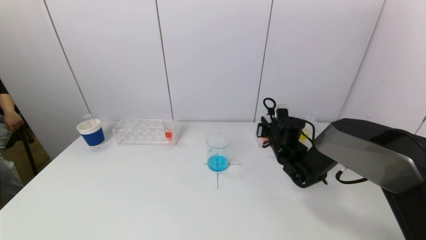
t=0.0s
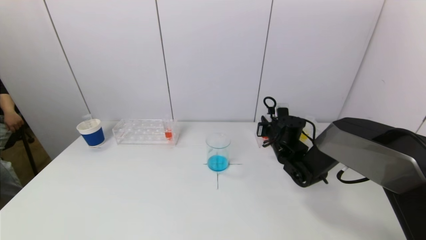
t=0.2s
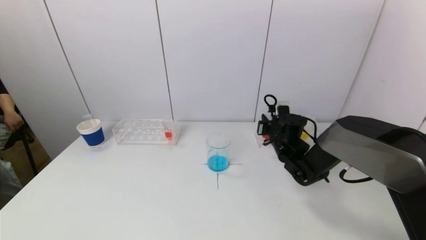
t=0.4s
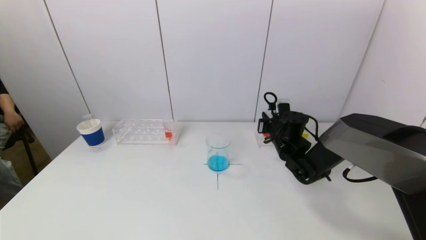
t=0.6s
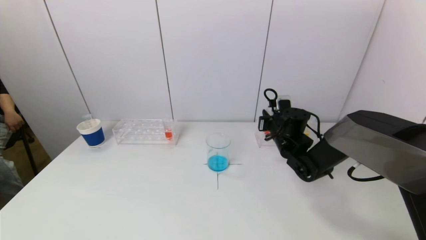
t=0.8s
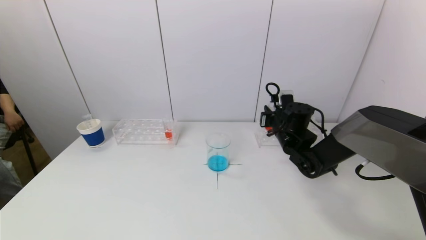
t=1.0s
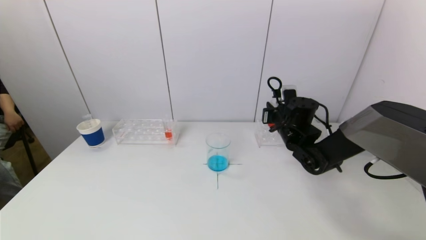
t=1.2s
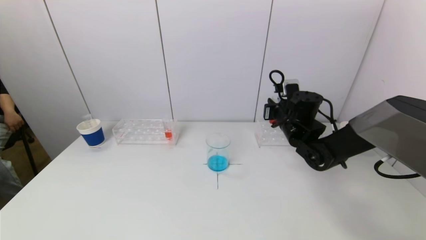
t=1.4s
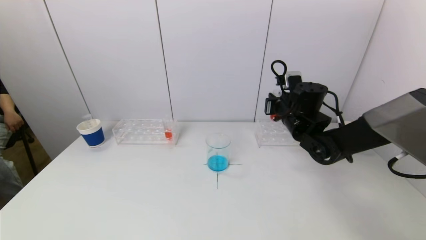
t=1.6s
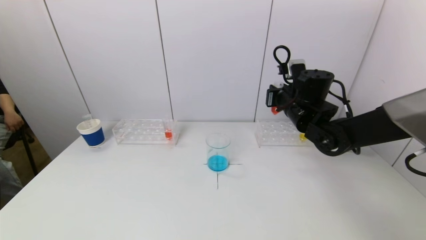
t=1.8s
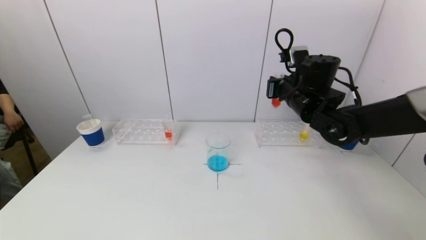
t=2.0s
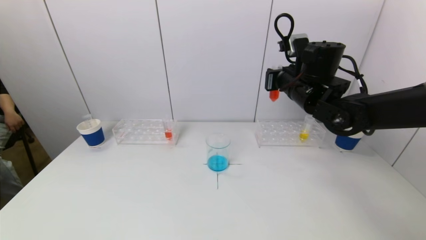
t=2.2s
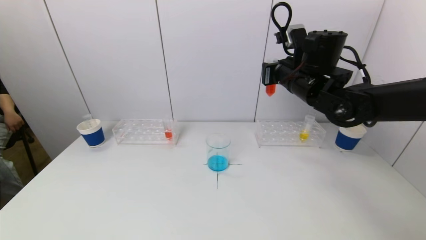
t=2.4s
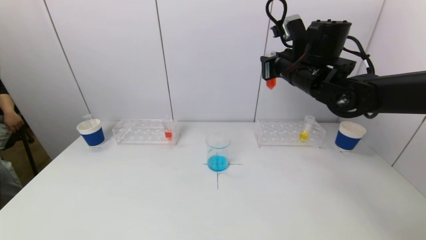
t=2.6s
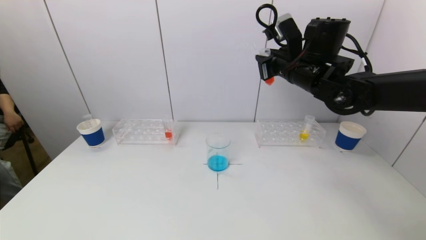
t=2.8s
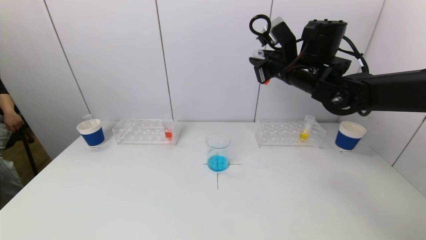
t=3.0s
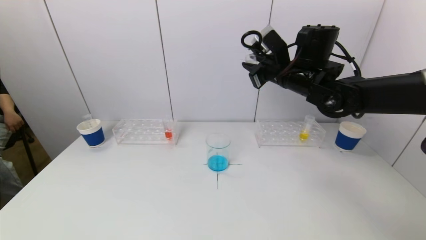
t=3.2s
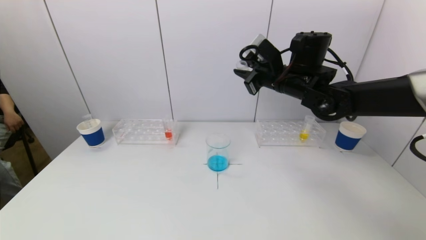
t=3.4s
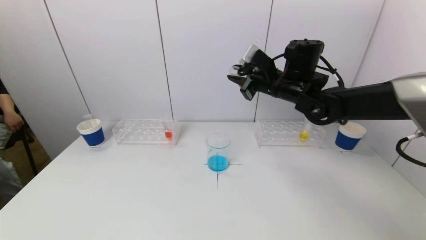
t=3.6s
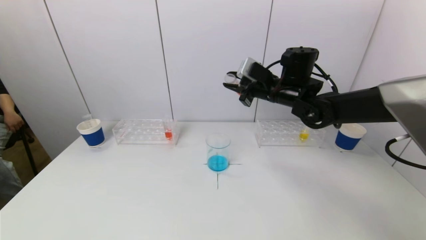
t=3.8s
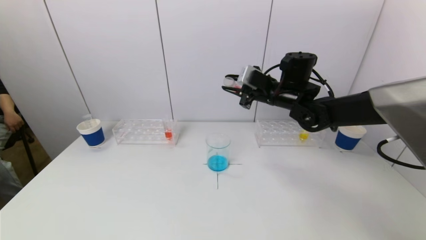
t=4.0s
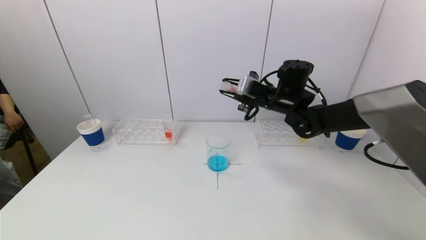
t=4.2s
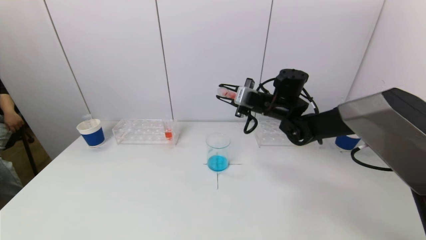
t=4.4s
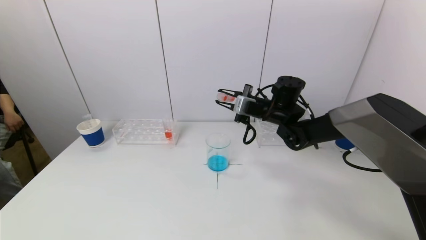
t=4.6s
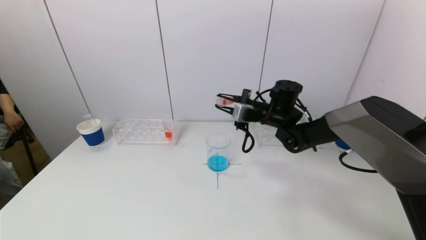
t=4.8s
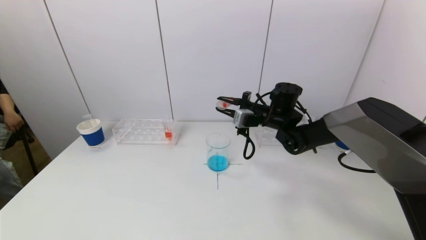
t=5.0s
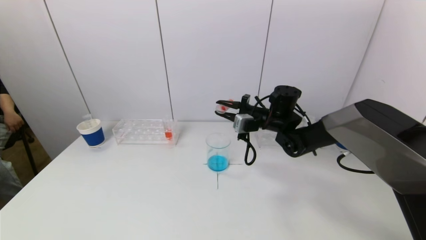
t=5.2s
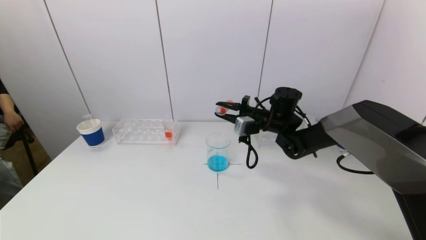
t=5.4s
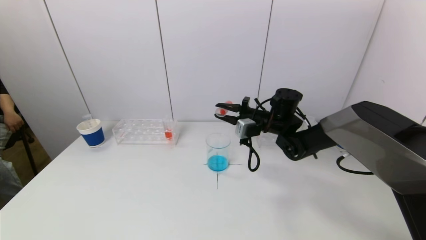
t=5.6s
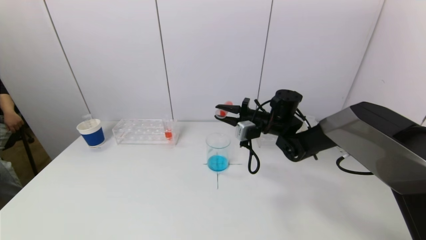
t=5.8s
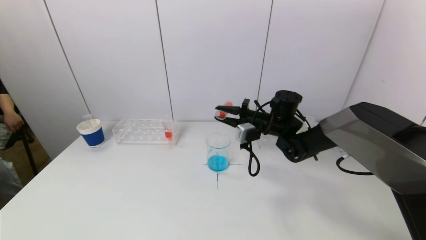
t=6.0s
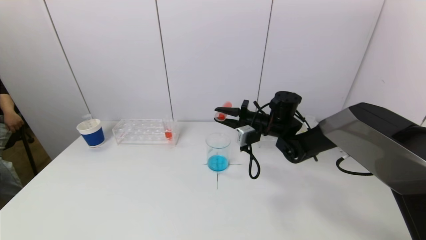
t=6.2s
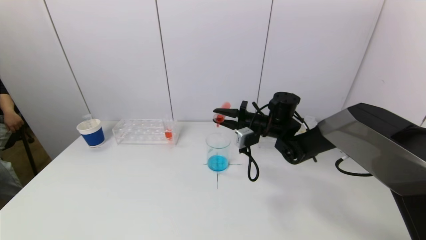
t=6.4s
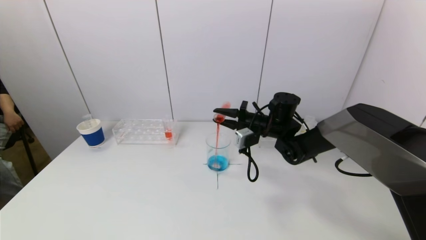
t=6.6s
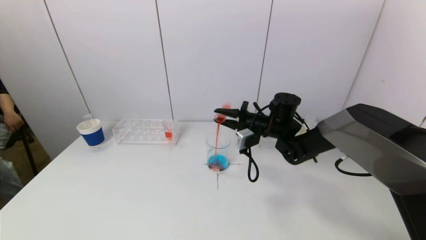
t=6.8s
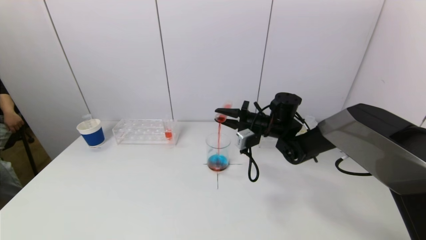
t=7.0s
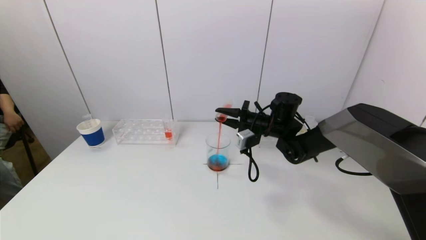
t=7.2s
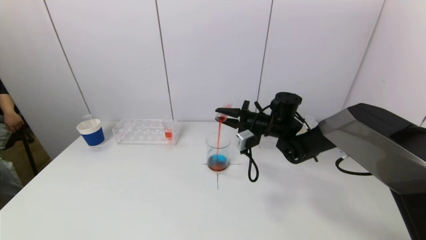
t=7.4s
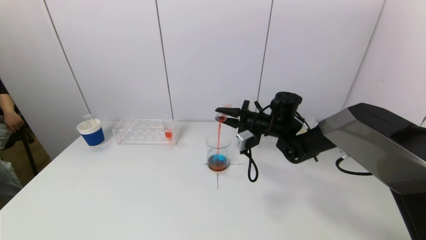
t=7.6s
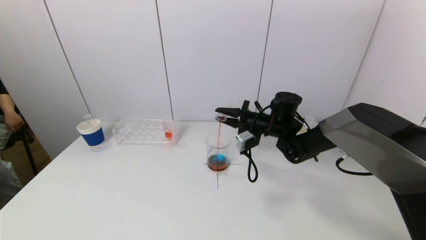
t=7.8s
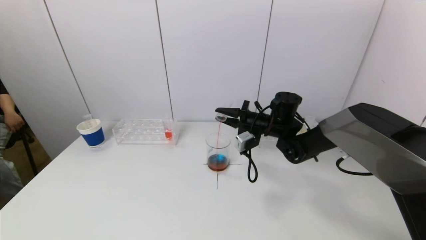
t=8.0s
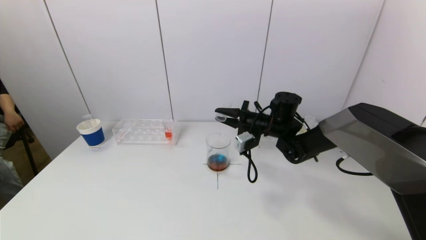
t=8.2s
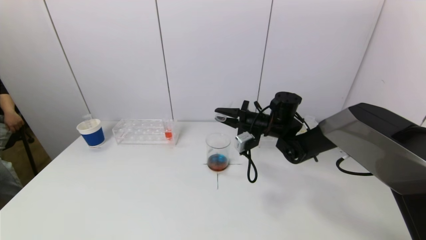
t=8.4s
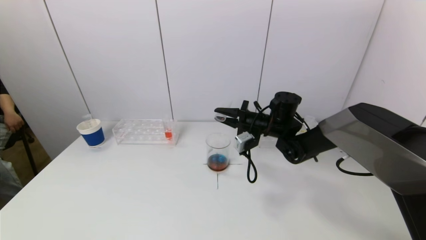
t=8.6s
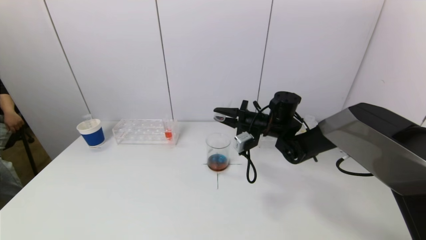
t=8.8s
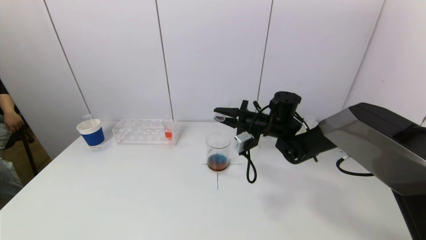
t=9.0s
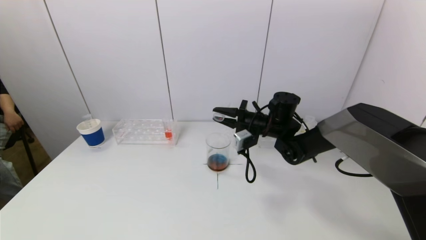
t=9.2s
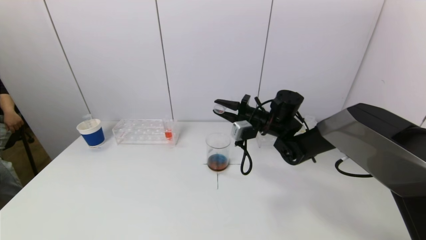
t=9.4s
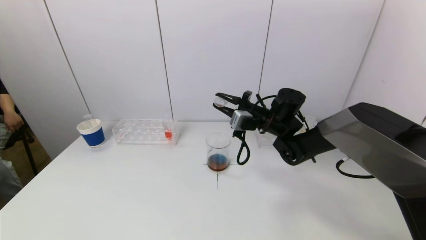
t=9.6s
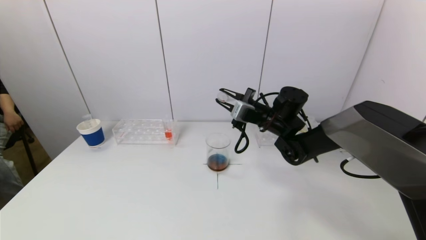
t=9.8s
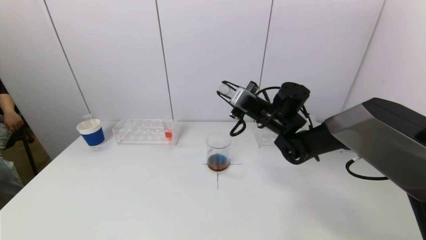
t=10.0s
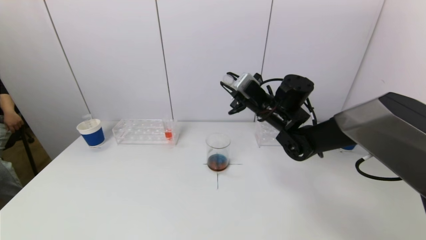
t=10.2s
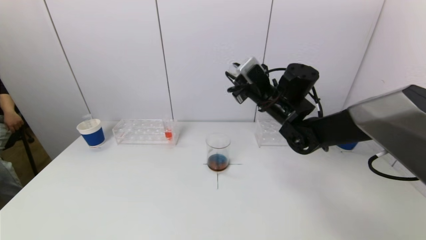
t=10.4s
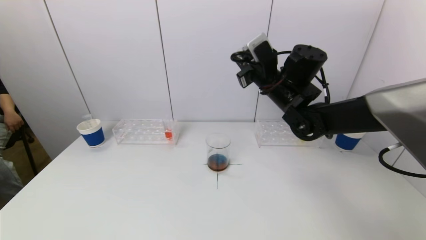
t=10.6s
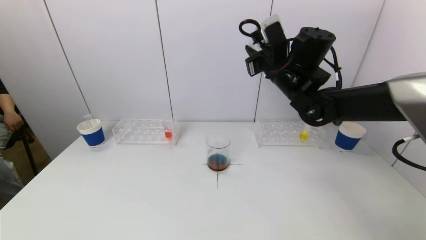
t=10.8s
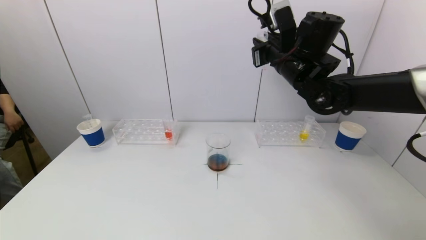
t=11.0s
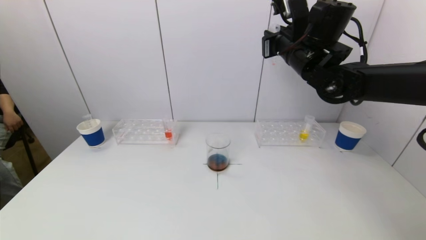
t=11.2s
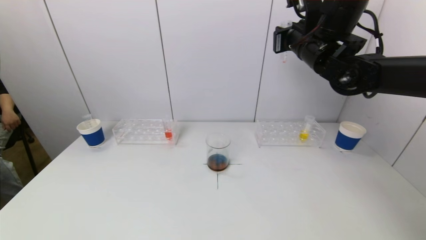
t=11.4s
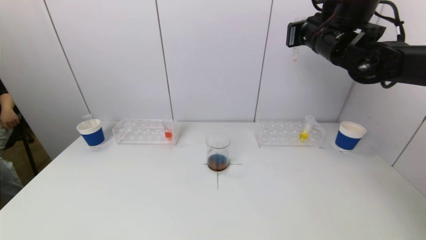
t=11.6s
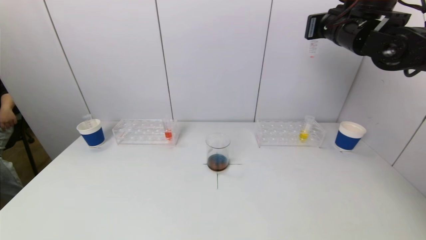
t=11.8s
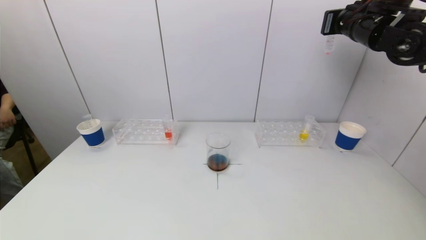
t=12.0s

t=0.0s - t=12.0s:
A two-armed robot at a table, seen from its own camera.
Task of the whole recording: pick up a test tube with pigment on left test tube rack and a test tube with pigment on right test tube rack by grippers and pour them into the beaker.
Step, t=0.0s - t=8.8s: Pour the red reagent into the graduated cylinder with the right gripper.
t=0.0s - t=1.6s: The right gripper is displaced upward by about 10 cm.
t=1.6s - t=3.0s: The right gripper is displaced upward by about 10 cm.
t=3.0s - t=4.4s: The right gripper travels downward by roughly 10 cm.
t=4.4s - t=6.0s: The right gripper heads downward, covering about 5 cm.
t=6.0s - t=7.6s: The grippers make only small movements.
t=7.6s - t=9.0s: Both grippers stay about where they are.
t=9.0s - t=10.4s: The right gripper is displaced upward by roughly 10 cm.
t=10.4s - t=12.0s: The right gripper travels to the right and upward by some 20 cm.

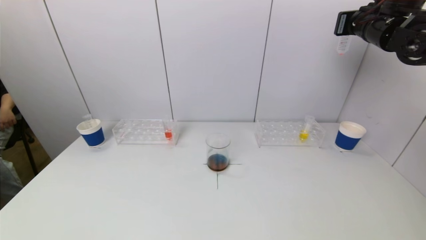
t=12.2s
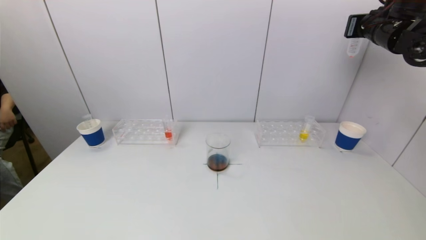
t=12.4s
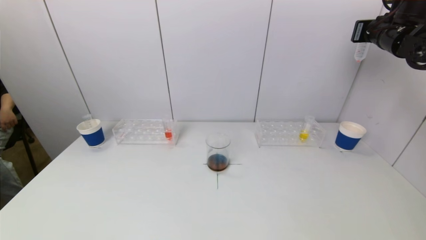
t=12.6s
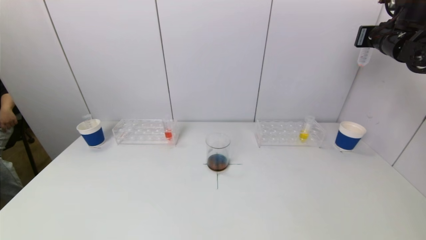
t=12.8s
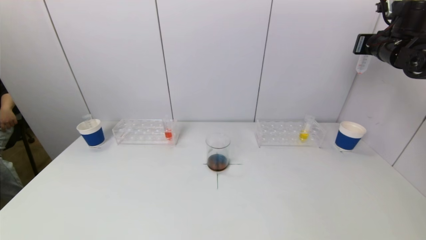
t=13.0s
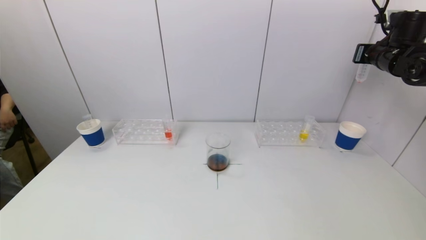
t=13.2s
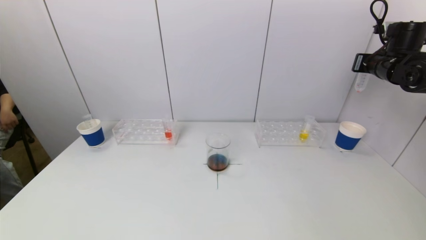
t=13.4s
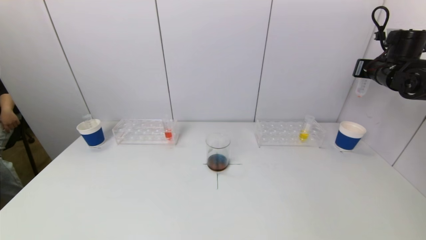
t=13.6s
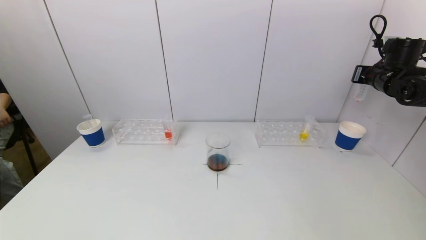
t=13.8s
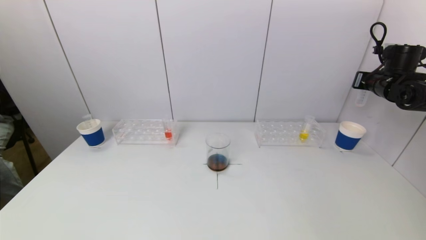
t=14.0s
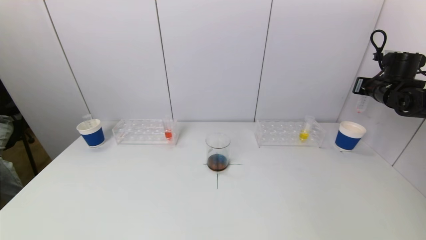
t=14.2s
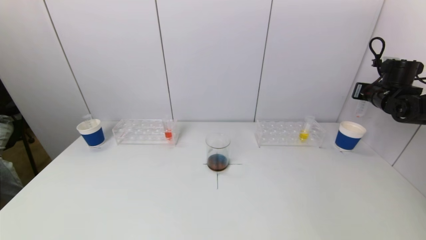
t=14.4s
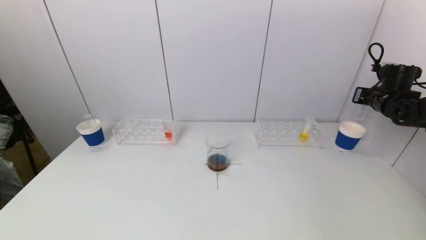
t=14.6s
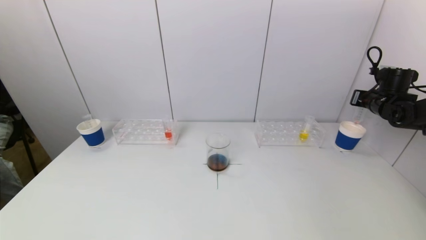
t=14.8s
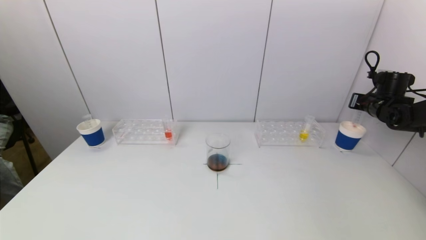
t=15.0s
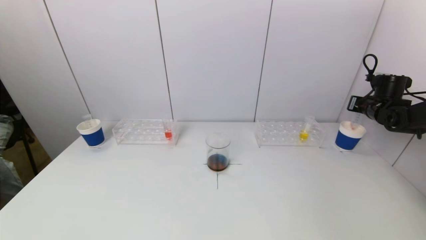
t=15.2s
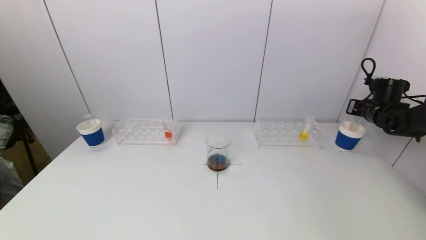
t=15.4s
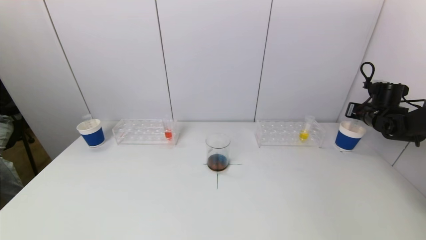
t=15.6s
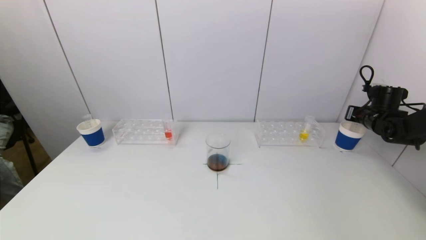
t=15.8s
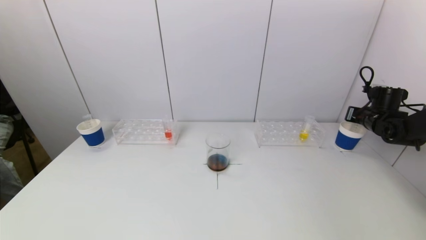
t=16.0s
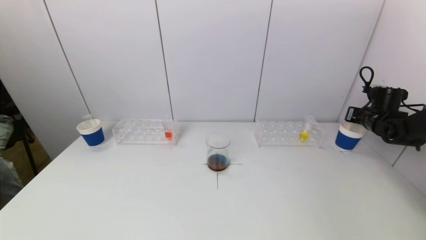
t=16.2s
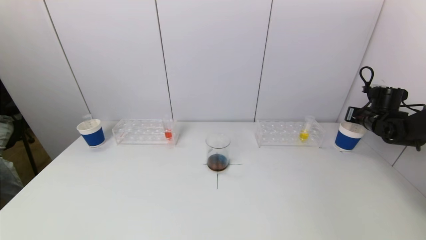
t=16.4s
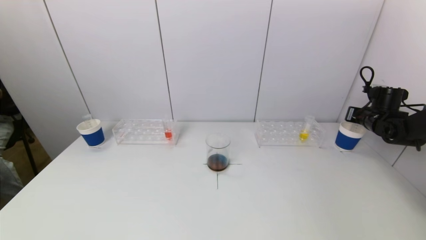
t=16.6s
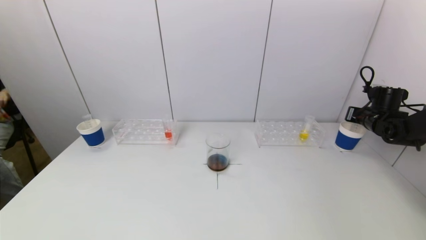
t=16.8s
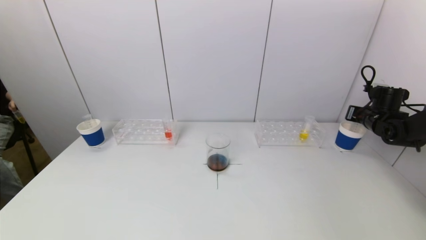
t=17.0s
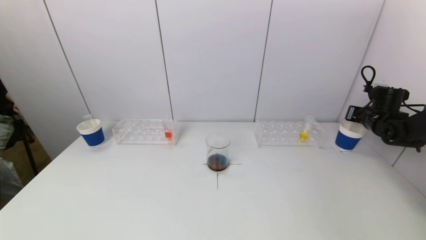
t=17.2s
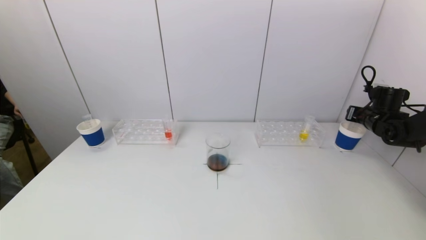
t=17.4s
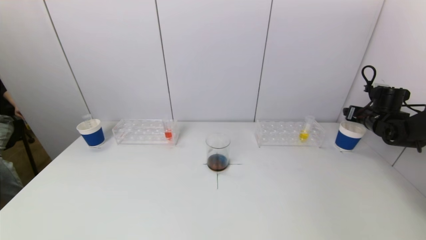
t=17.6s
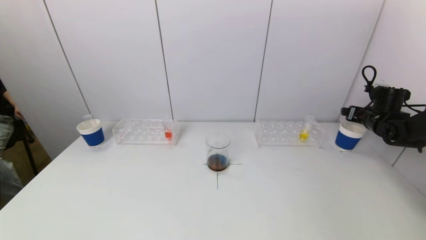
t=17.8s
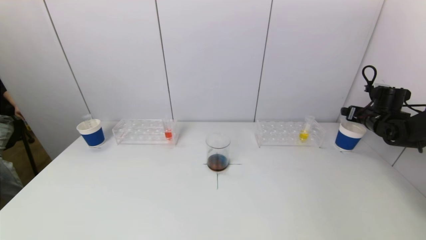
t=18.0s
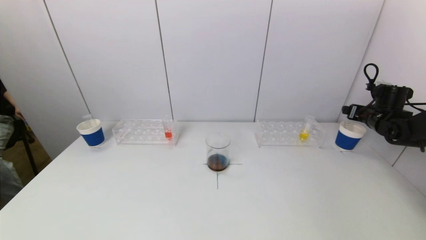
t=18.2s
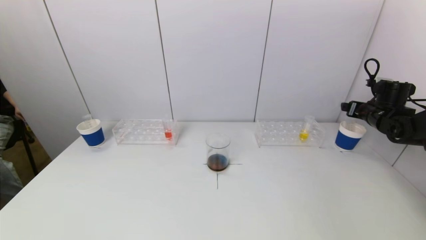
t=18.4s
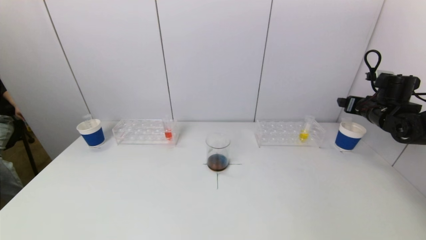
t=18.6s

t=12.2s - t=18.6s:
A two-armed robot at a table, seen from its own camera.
Task of the whole recording: pick up a test tube with pigment on left test tube rack and a test tube with pigment on right test tube rack by grippers and pour them into the beaker.
Step, t=12.2s - t=18.0s: Place the test tube into the paper cup with the right gripper.
t=12.2s - t=13.8s: The right gripper goes roughly 15 cm downward and to the right.
t=13.8s - t=15.4s: The right gripper heads downward, covering some 10 cm.
t=15.4s - t=17.0s: There are only small adjustments of the grippers.
t=17.0s - t=18.6s: The right gripper moves some 5 cm, and opens.
